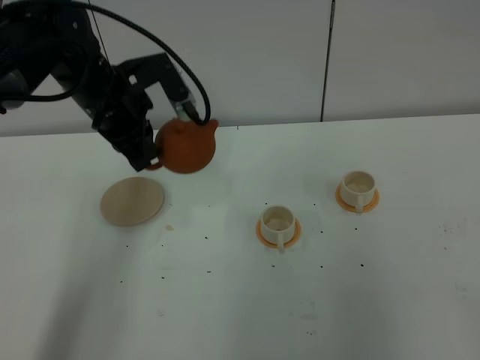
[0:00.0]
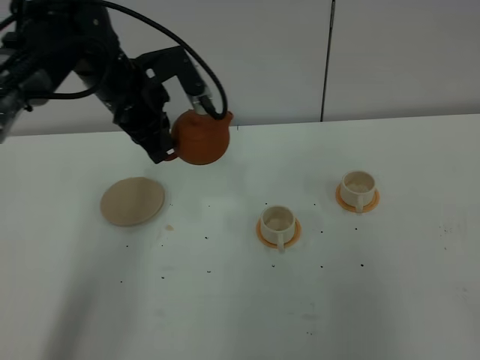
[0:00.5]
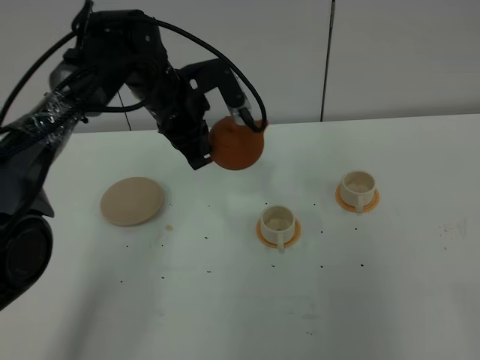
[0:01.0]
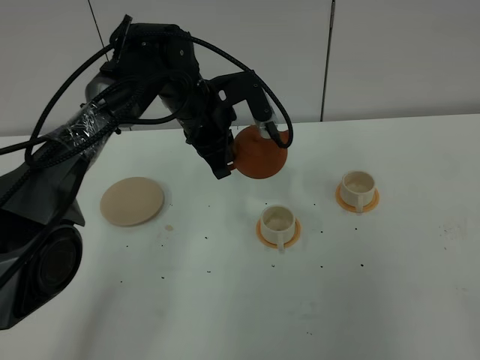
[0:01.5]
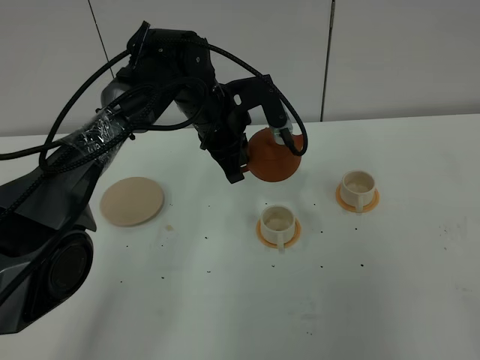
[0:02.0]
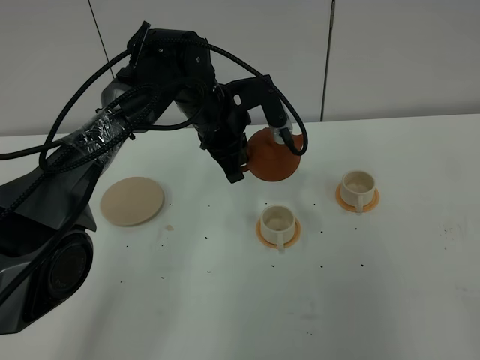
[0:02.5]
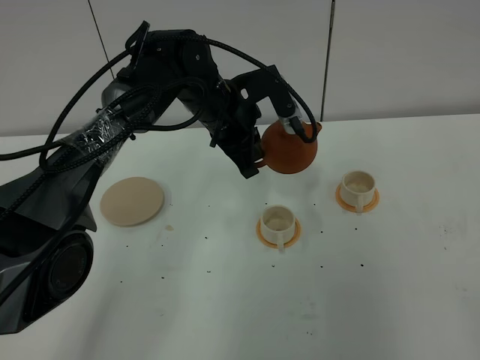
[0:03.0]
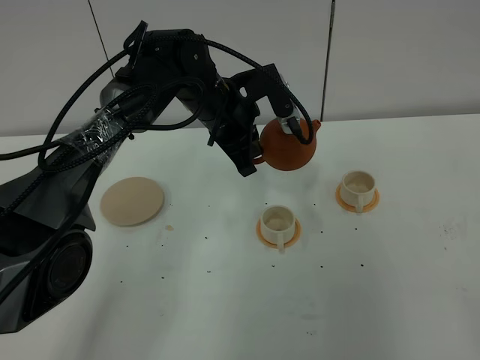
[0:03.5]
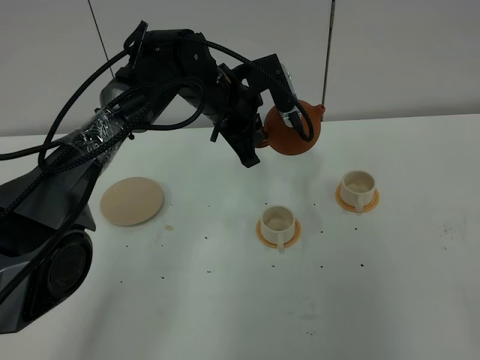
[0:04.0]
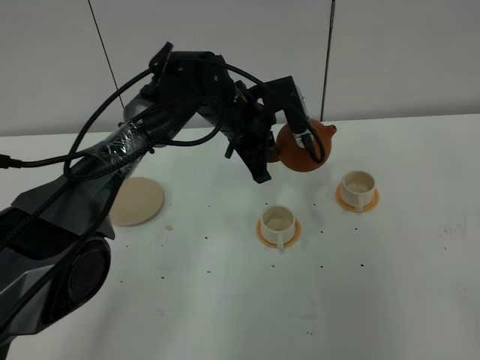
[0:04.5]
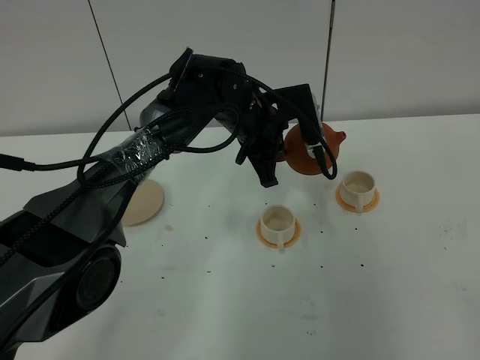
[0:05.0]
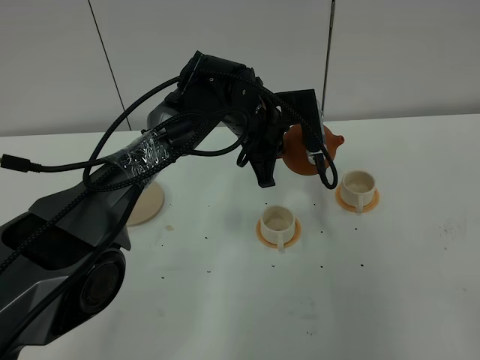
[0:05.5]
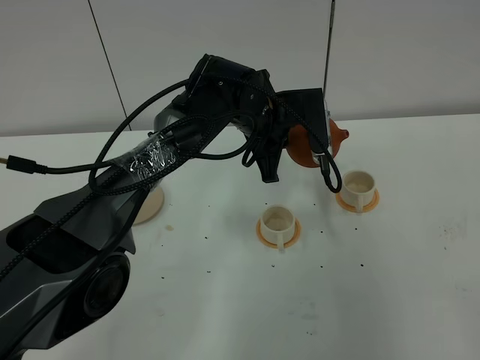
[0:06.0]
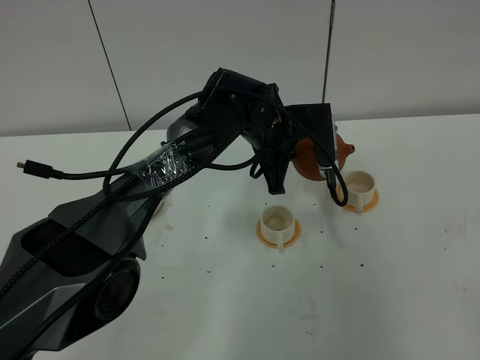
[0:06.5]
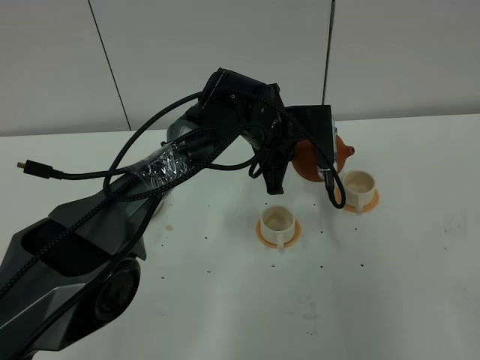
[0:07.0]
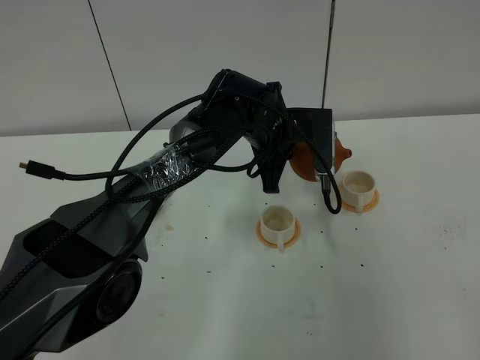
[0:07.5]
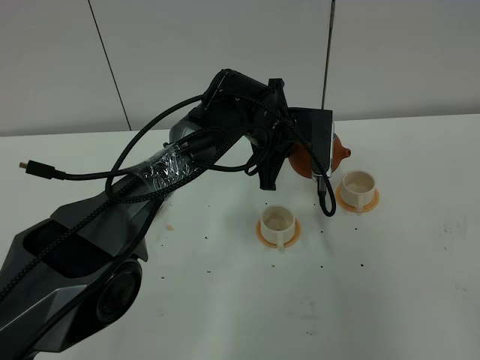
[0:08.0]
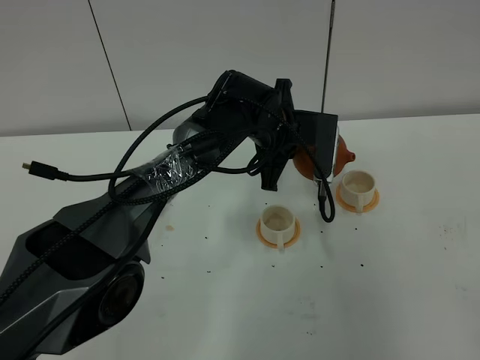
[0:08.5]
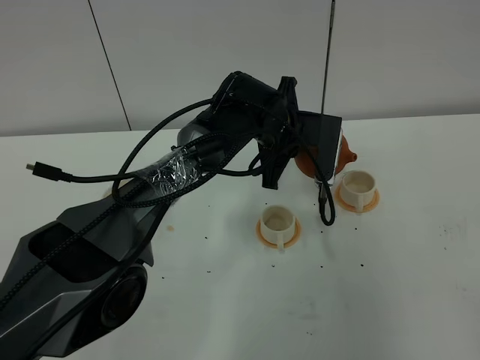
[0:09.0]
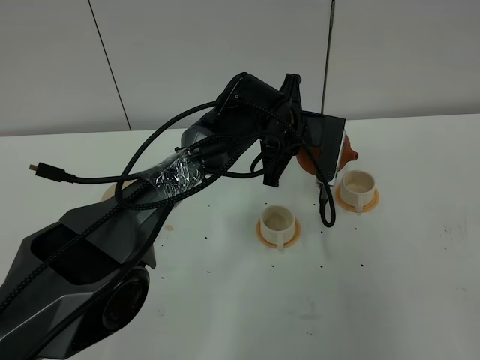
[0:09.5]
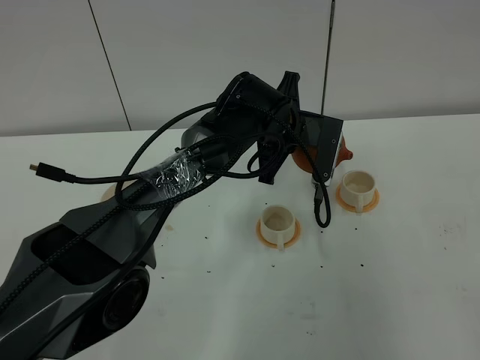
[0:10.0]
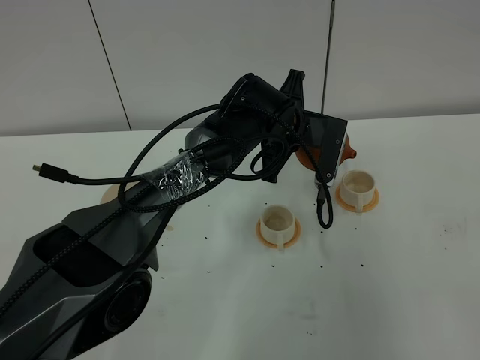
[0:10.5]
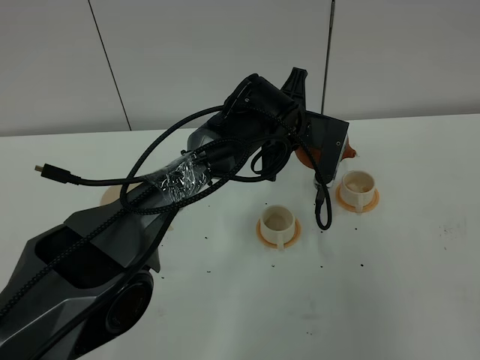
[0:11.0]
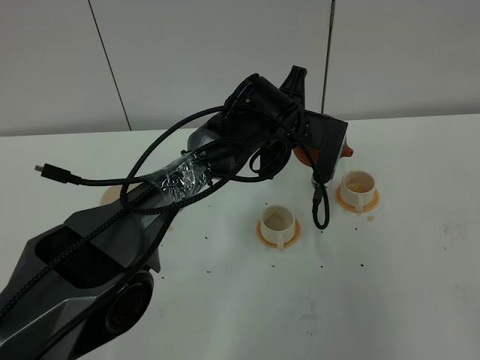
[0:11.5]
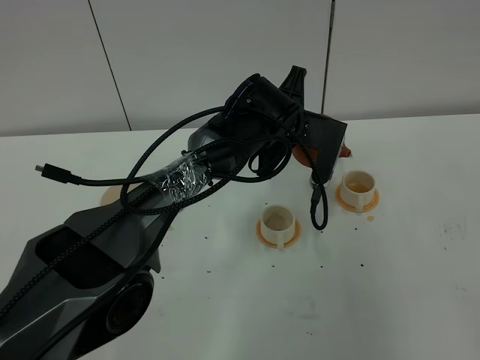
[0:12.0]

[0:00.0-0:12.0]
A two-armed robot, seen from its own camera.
Task of the whole recording: grasp the brown teapot and pour the tea into the two white teacups one by one, put the brown teapot back in its original place.
0:00.0 to 0:02.0: The left gripper travels to the right and downward by about 15 cm.
0:02.0 to 0:04.0: The grippers move only a little.
0:04.0 to 0:06.0: The left gripper travels to the right by about 5 cm.
0:06.0 to 0:08.0: There are only small adjustments of the grippers.
0:08.0 to 0:12.0: The grippers move only a little.

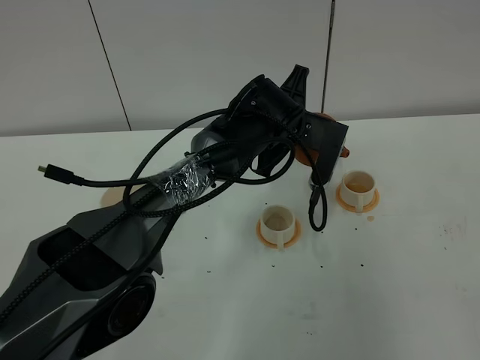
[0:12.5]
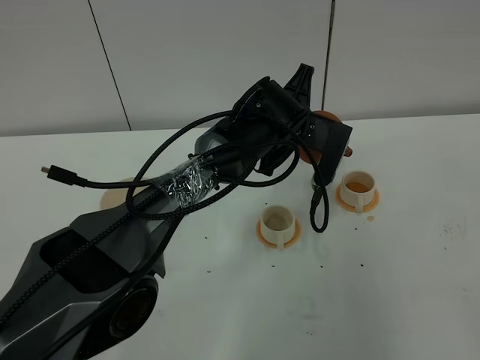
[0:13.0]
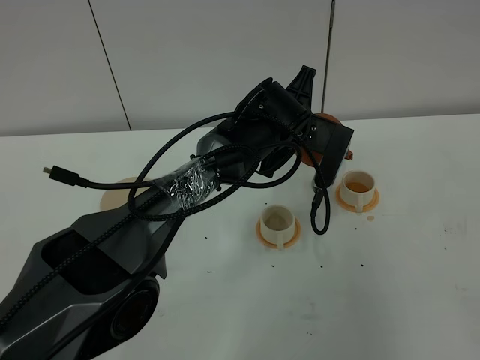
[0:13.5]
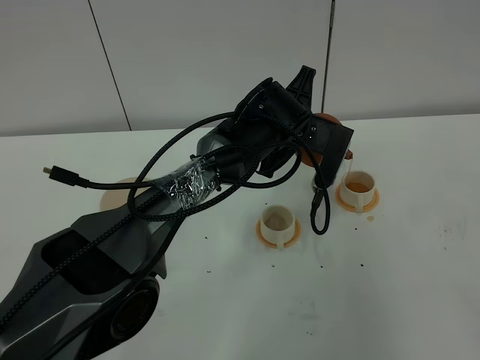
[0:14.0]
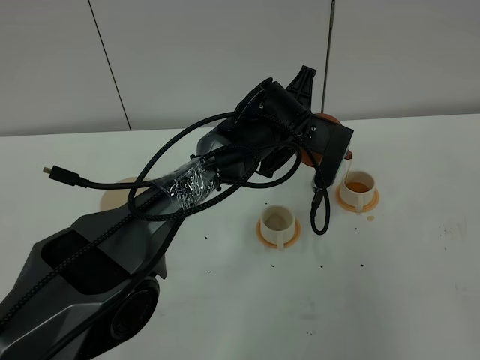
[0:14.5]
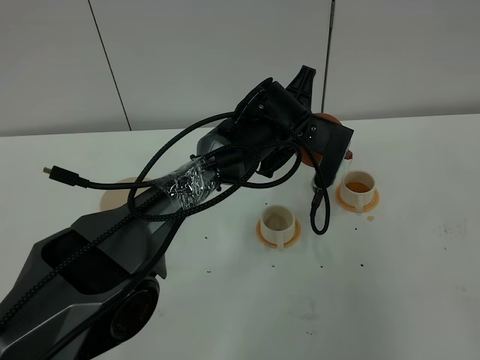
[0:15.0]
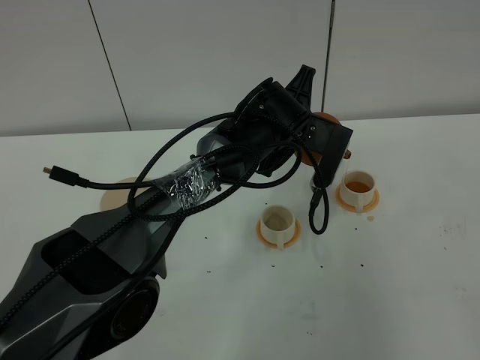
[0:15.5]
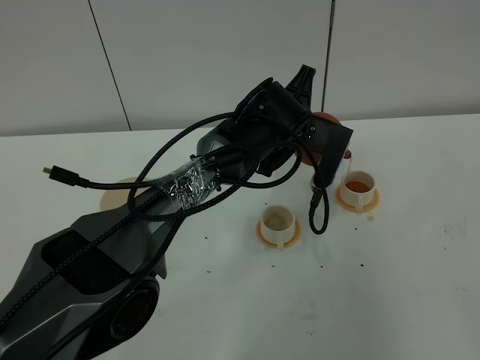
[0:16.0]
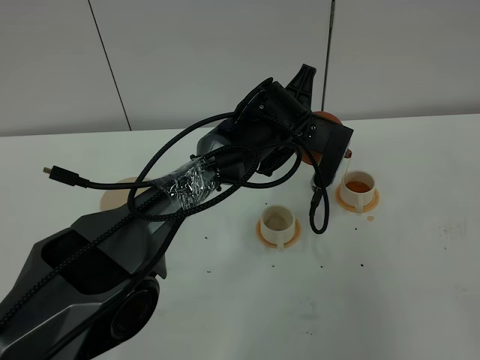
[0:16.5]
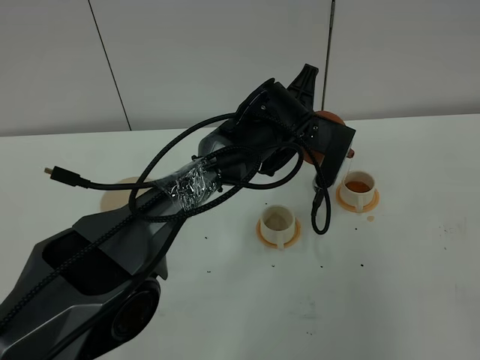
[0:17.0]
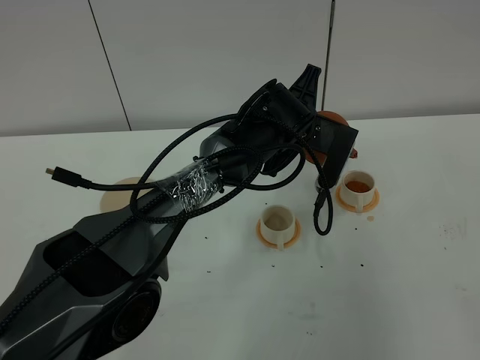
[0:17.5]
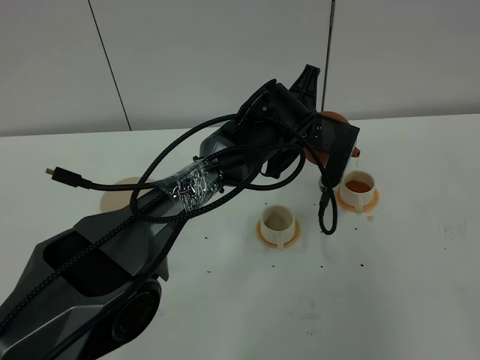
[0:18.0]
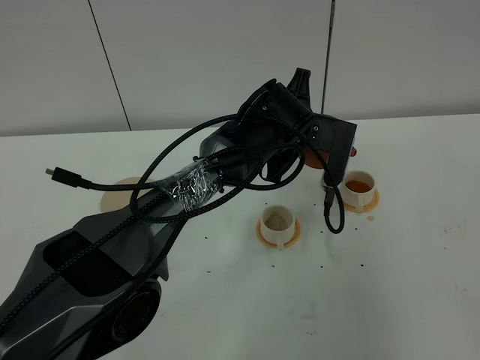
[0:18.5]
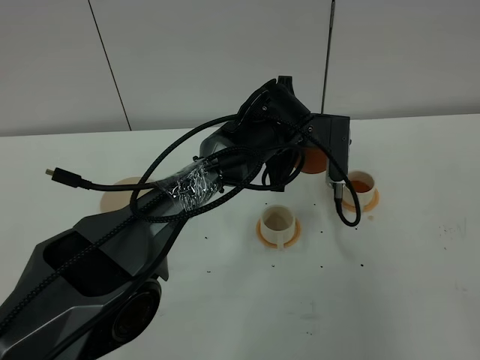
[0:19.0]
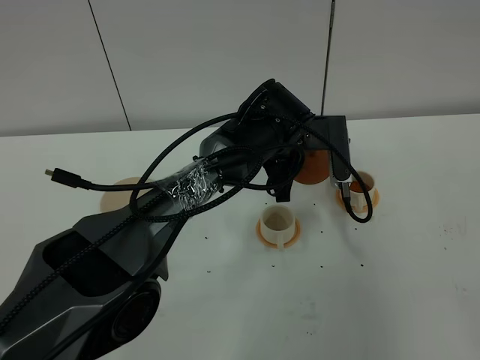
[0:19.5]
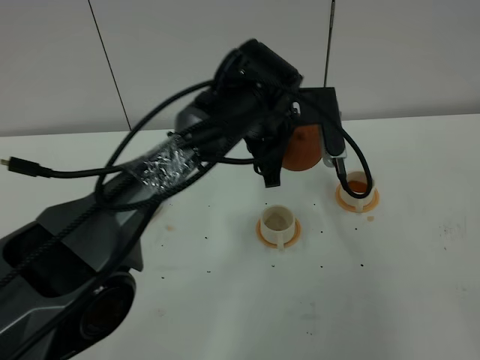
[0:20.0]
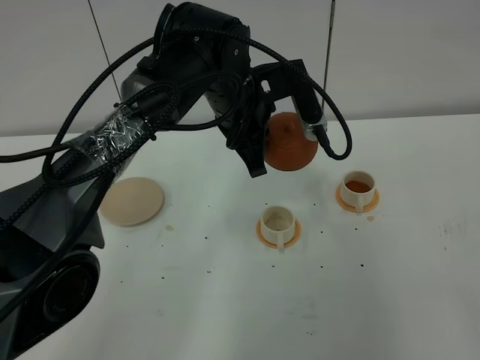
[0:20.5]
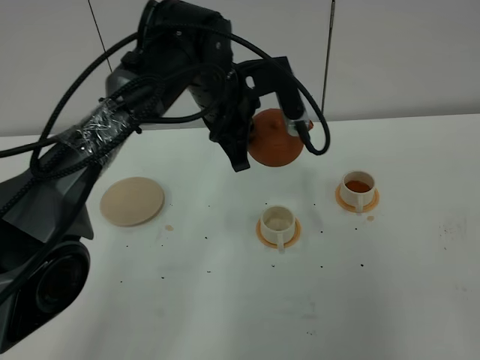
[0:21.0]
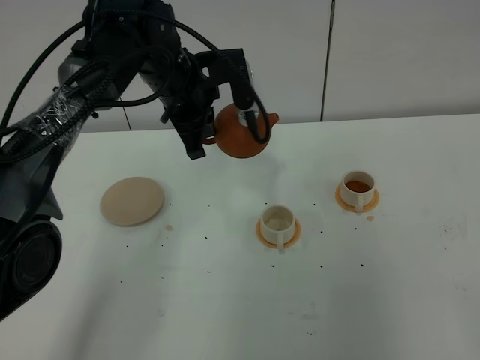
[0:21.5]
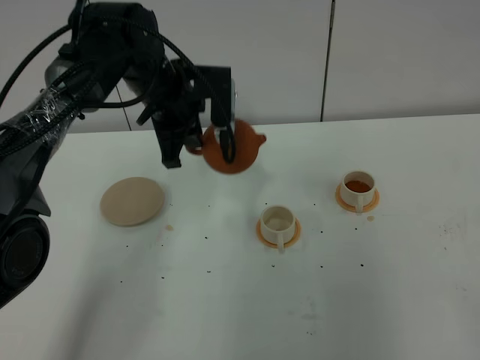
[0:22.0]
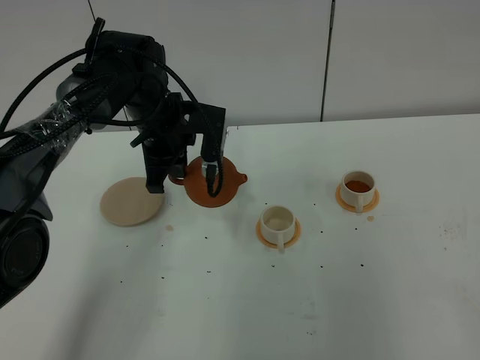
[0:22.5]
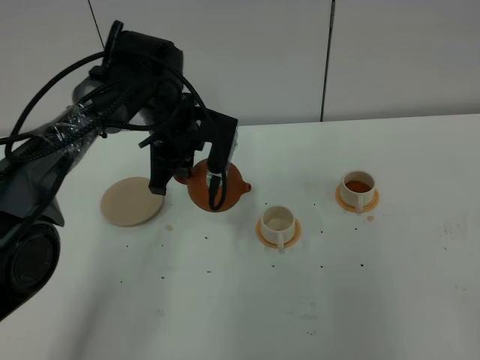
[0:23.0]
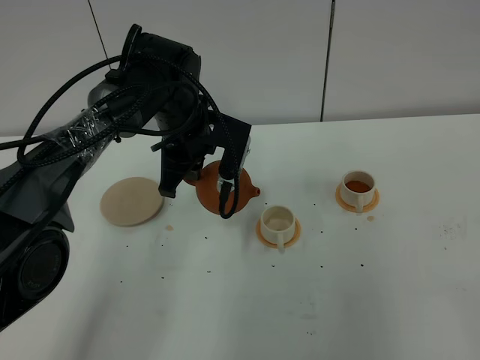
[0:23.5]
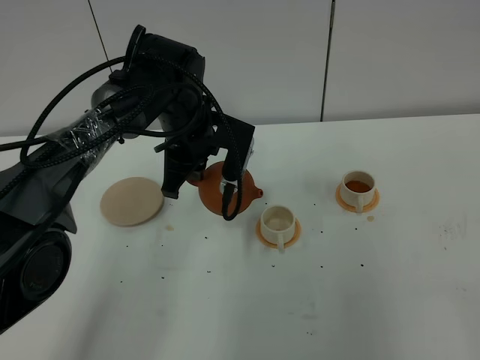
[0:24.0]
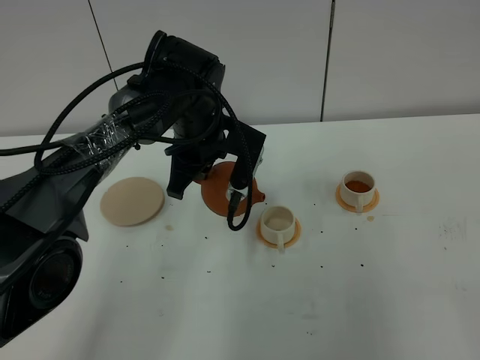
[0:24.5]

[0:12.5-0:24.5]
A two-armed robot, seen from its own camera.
Task of the whole recording: grasp the brown teapot and pour the tea into the two white teacups one by one, put the brown teapot back in its original place.
Step, 0:12.5 to 0:20.5: Pour tea into the teacup with the left gripper.
0:12.5 to 0:16.5: The two grippers keep their place.
0:16.5 to 0:18.5: The grippers move only a little.
0:18.5 to 0:20.5: The left gripper goes about 10 cm upward and to the left.
0:20.5 to 0:22.5: The left gripper is displaced to the left and downward by roughly 10 cm.
0:22.5 to 0:24.5: The left gripper goes some 5 cm to the right.

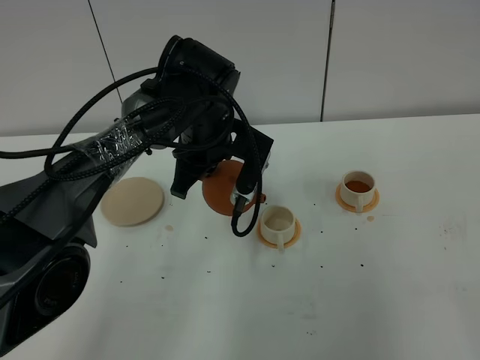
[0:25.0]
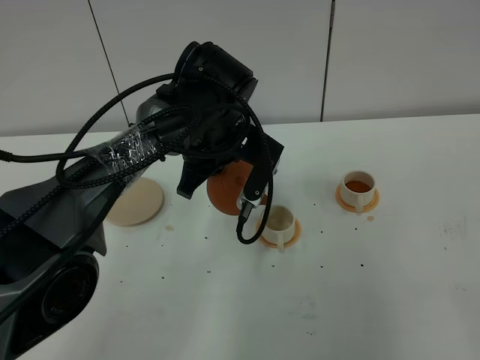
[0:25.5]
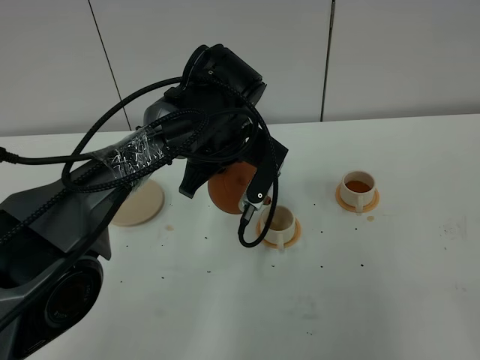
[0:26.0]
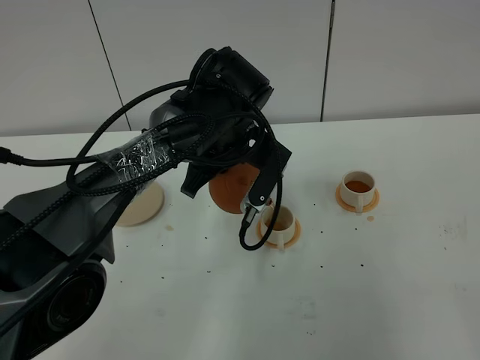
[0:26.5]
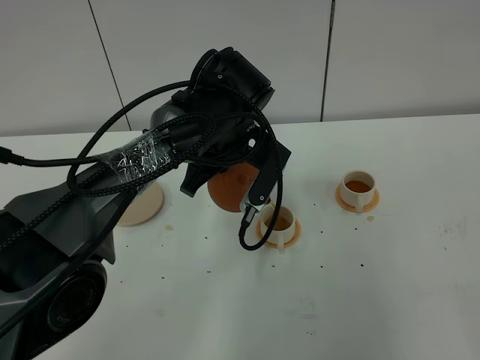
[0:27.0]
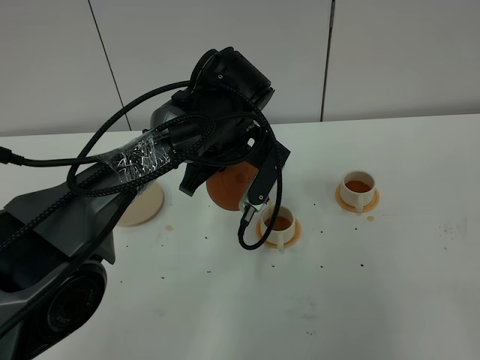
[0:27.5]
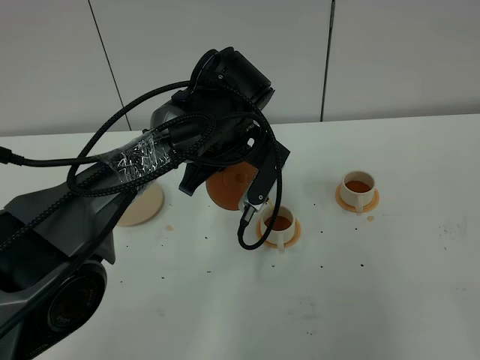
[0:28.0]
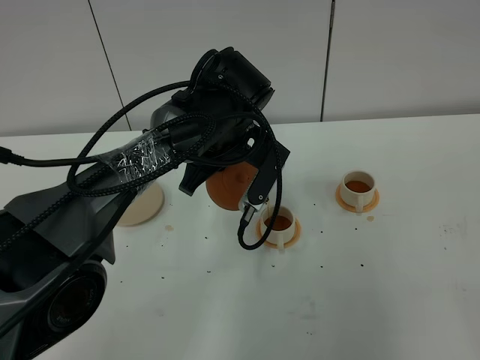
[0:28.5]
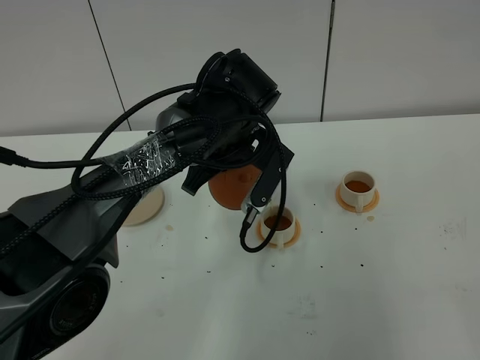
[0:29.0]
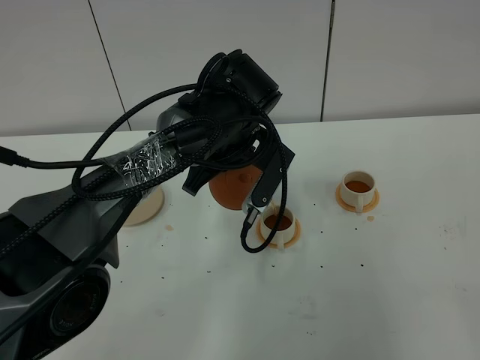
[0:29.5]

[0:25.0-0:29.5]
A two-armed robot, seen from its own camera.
Task of the whole recording: grasp the brown teapot and pour the tea into the two white teacups one by one, put the brown teapot back in its original place.
0:25.0 to 0:27.0: The grippers stay close to where they were, moving slightly.
0:27.0 to 0:29.5: Both grippers stay put.
